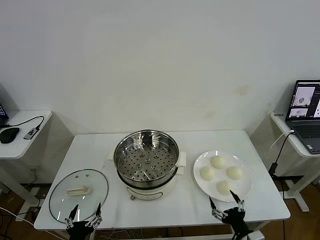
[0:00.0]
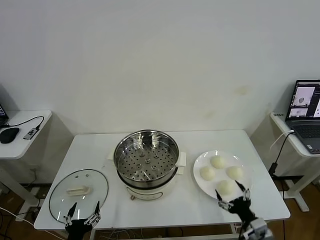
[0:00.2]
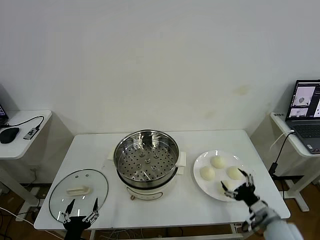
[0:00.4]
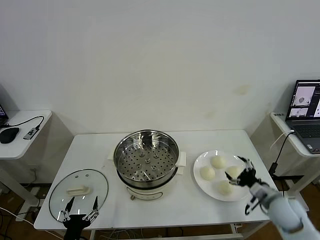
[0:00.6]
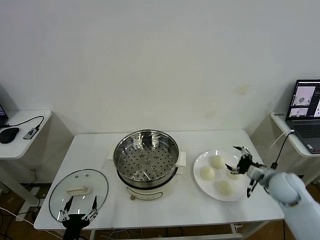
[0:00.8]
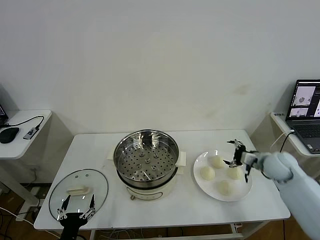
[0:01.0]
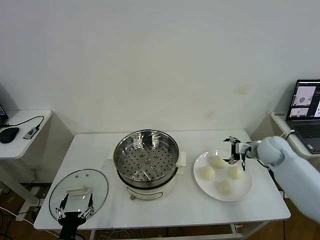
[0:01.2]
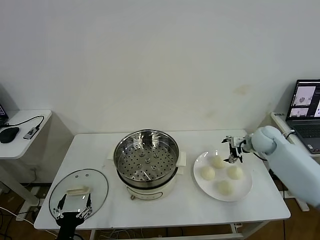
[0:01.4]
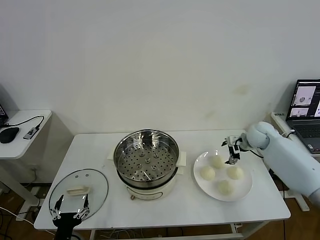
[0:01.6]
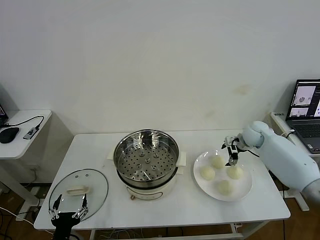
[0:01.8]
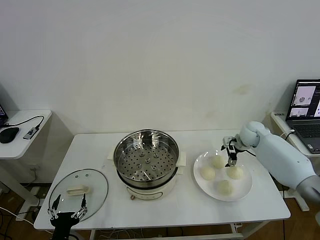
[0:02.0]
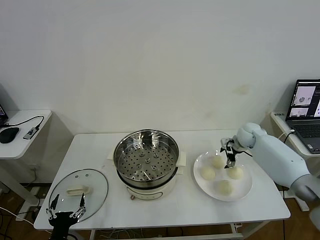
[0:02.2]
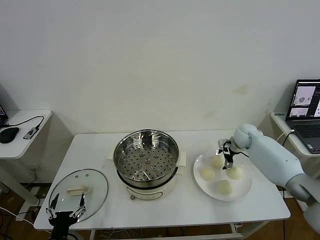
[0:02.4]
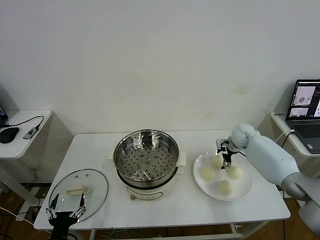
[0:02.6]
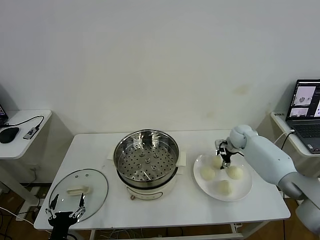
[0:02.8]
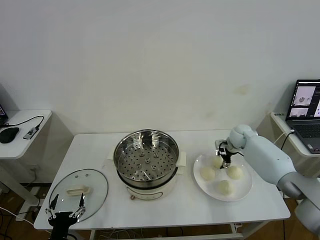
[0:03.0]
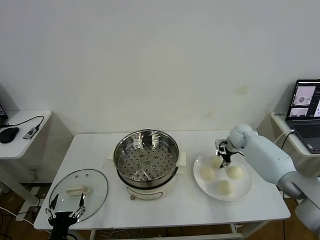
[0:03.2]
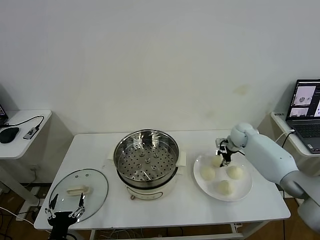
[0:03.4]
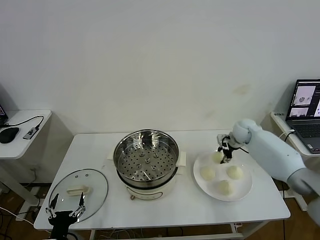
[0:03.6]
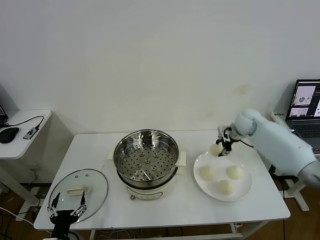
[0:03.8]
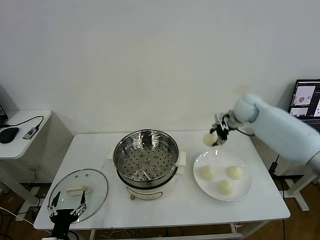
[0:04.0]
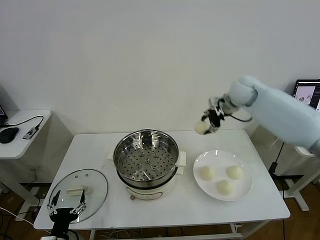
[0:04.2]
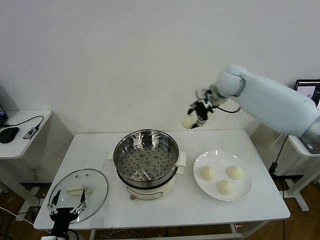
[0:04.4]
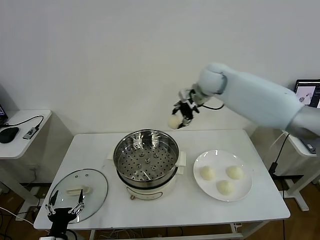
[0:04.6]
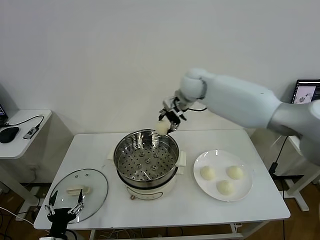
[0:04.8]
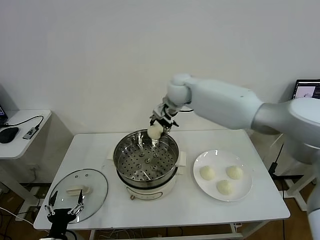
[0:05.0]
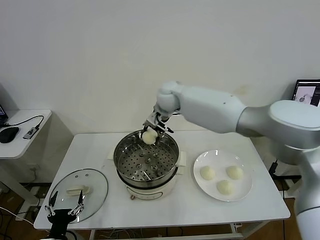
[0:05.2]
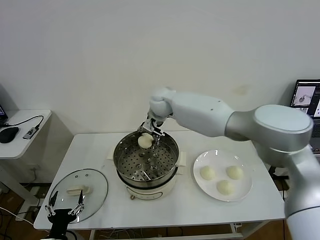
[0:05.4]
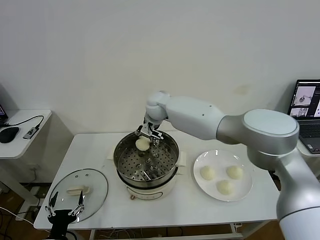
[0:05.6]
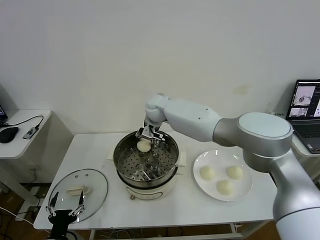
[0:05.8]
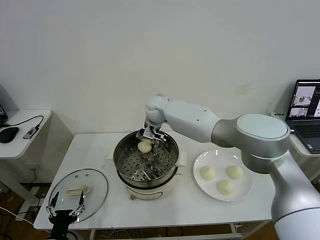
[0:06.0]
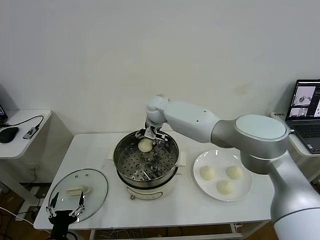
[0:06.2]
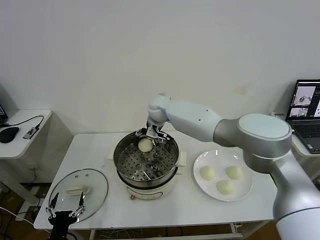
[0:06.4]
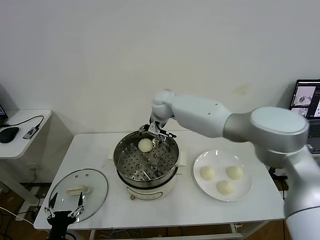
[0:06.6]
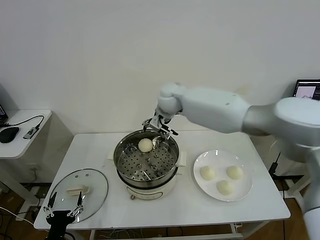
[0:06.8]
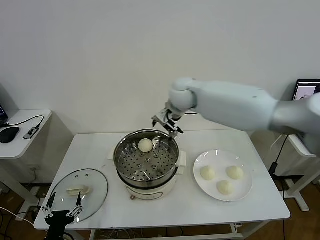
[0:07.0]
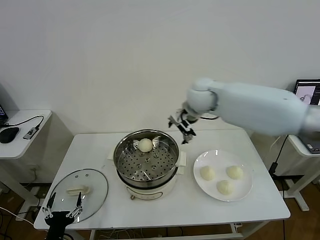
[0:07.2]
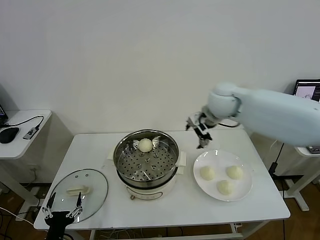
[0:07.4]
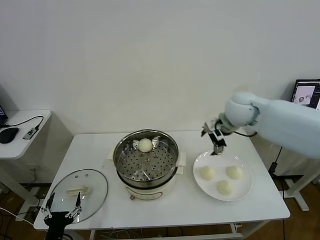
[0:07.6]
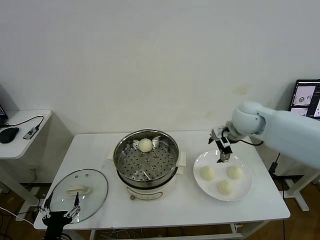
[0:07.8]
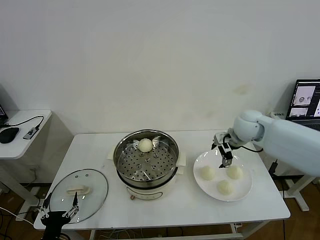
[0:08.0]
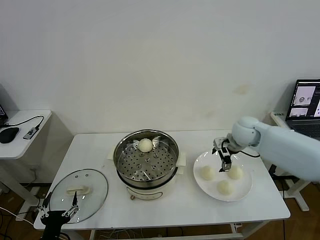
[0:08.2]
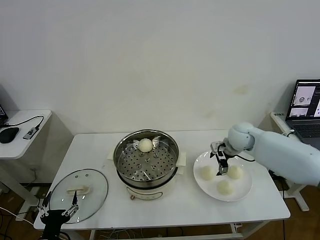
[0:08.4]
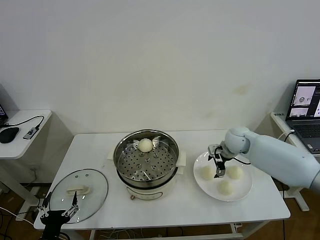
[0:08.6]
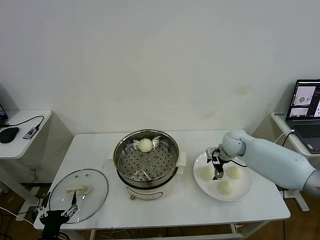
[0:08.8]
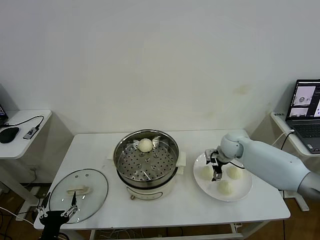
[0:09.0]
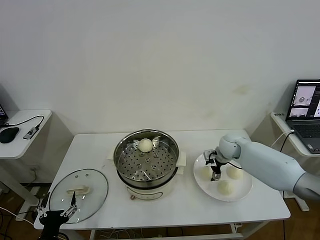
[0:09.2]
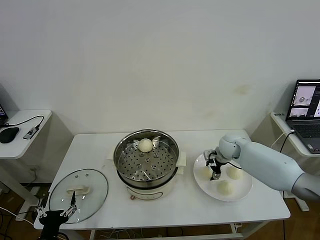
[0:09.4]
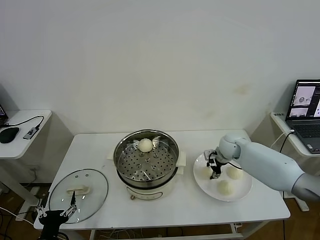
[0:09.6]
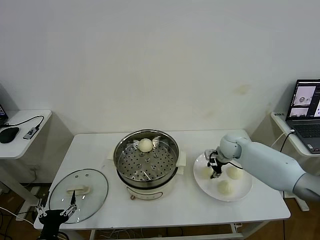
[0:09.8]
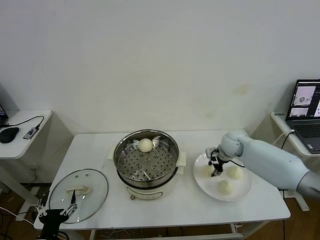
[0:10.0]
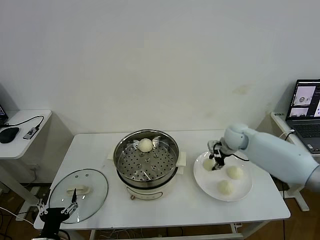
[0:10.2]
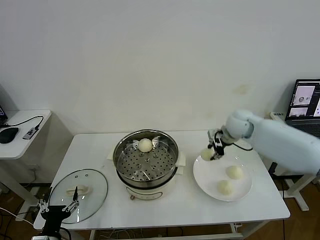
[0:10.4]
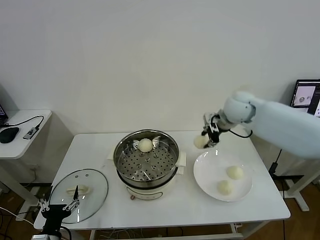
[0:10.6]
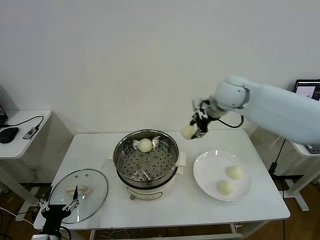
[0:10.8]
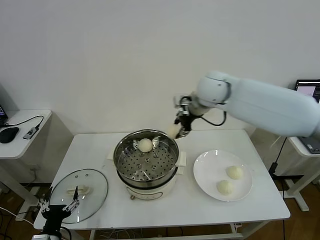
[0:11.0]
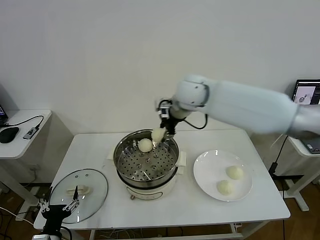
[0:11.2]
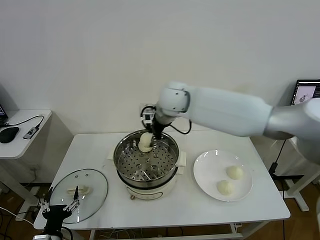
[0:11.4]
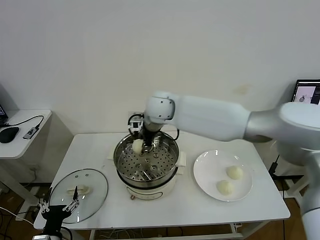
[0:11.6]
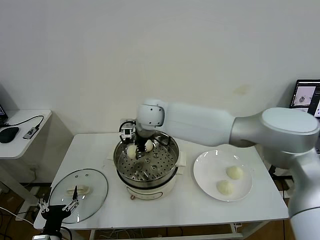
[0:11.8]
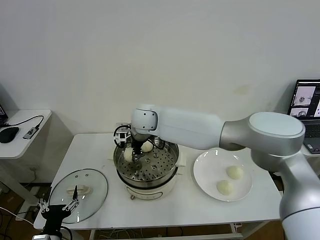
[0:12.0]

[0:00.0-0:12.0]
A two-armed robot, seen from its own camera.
Task of the whole recording: take steamed baozi put them in steamer then cover it.
Step, 0:00.0 to 0:03.4: Grasp the baozi in the plate with right gripper.
Step, 0:03.6 to 0:06.2: Place the baozi on the steamer with right gripper.
Step, 0:06.4 to 0:09.6: Grasp the baozi in the plate with right gripper.
0:01.6 to 0:03.0: The right gripper shifts by about 5 cm, and closes up.
0:03.0 to 0:04.4: The right gripper heads upward and to the left, covering roughly 30 cm.
0:04.4 to 0:06.0: The right gripper is displaced to the left and downward by roughly 25 cm.
0:06.0 to 0:07.6: The right gripper is displaced to the right by some 25 cm, and opens up.
0:07.6 to 0:09.0: The right gripper travels downward by roughly 20 cm.
0:09.0 to 0:10.4: The right gripper is displaced upward by about 15 cm, and closes its fingers.
0:10.4 to 0:12.0: The right gripper shifts some 30 cm to the left.

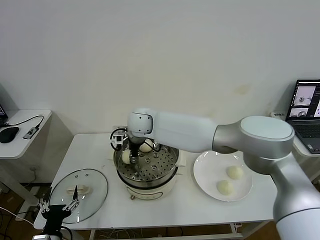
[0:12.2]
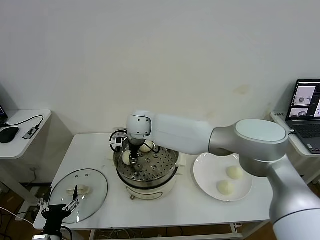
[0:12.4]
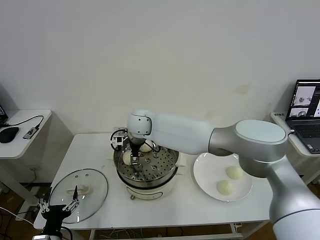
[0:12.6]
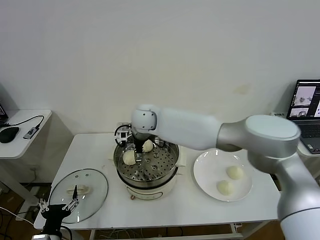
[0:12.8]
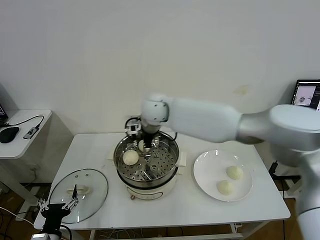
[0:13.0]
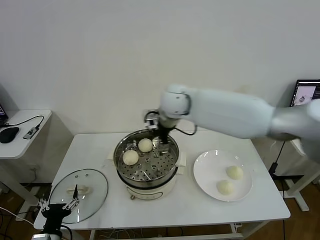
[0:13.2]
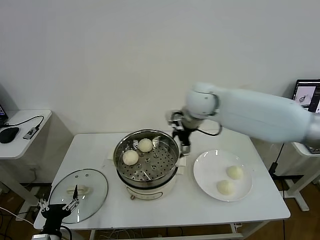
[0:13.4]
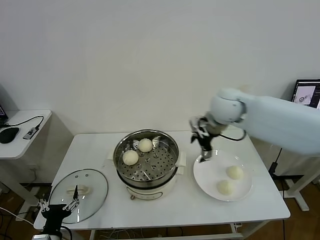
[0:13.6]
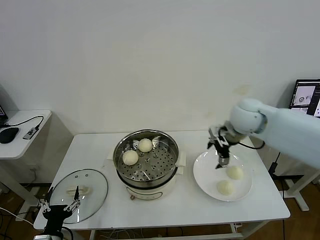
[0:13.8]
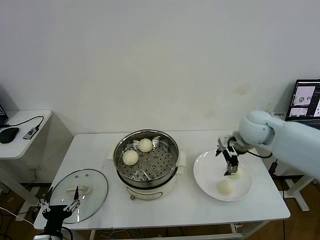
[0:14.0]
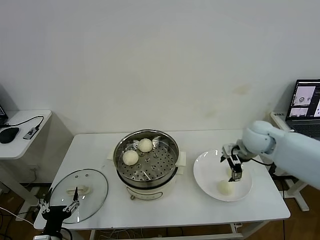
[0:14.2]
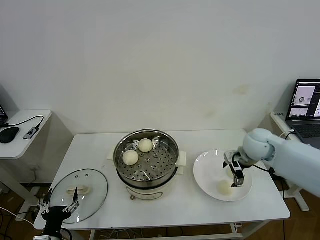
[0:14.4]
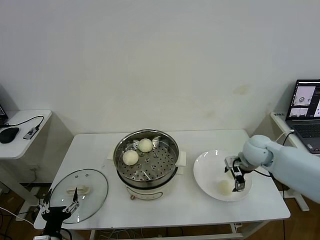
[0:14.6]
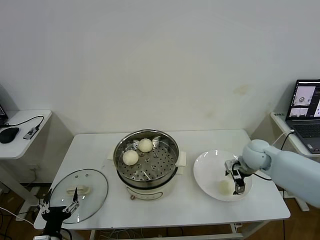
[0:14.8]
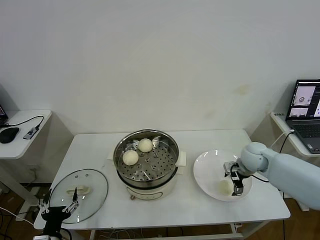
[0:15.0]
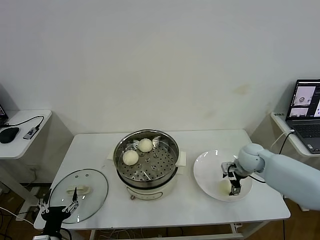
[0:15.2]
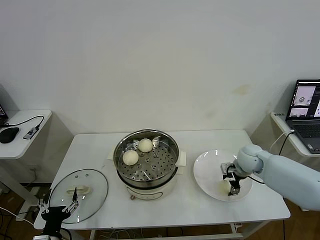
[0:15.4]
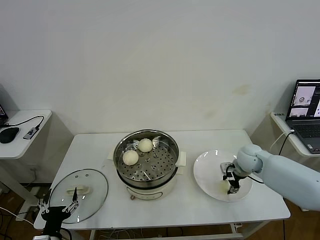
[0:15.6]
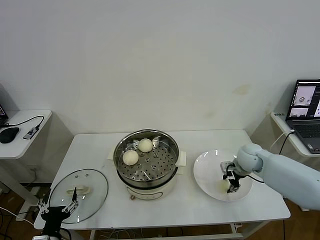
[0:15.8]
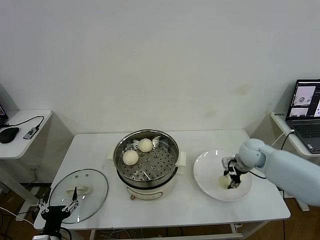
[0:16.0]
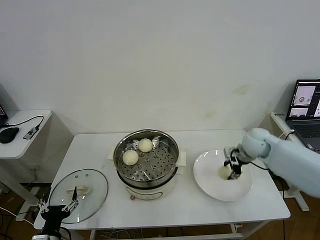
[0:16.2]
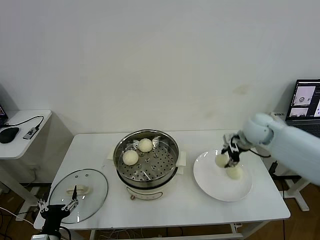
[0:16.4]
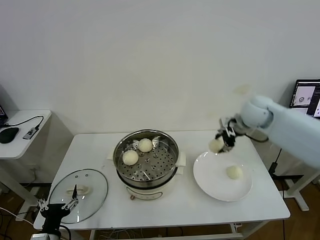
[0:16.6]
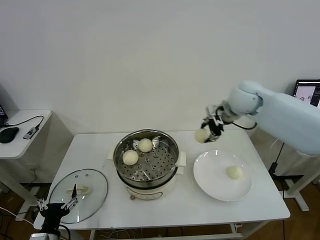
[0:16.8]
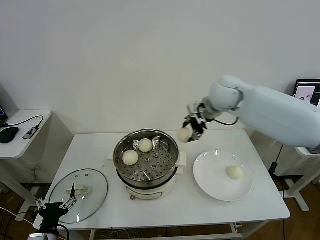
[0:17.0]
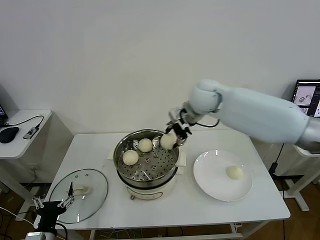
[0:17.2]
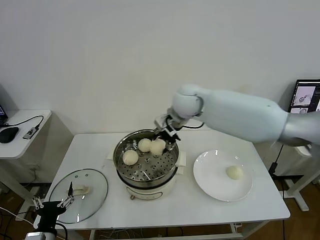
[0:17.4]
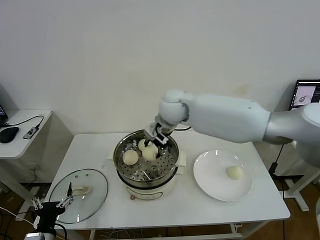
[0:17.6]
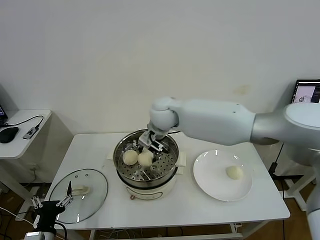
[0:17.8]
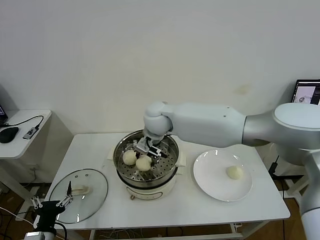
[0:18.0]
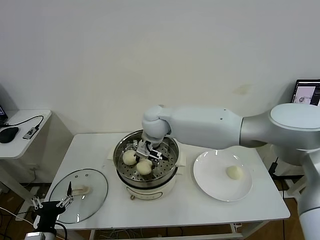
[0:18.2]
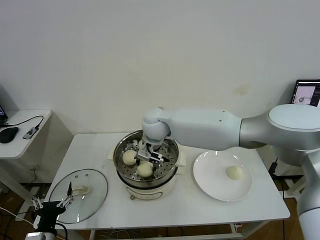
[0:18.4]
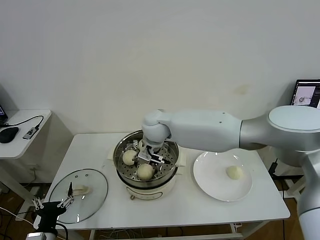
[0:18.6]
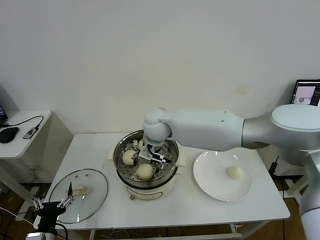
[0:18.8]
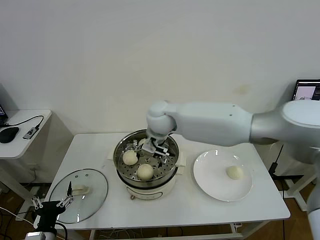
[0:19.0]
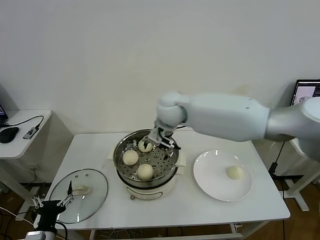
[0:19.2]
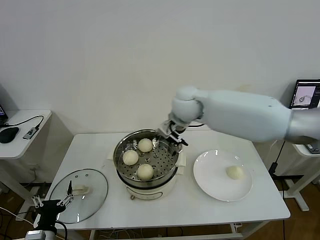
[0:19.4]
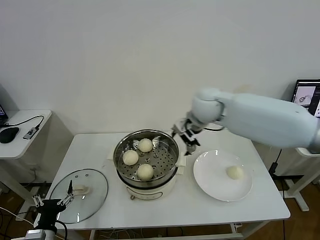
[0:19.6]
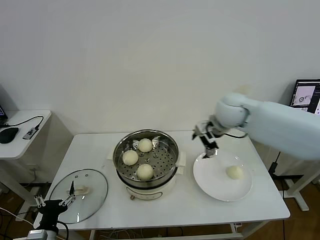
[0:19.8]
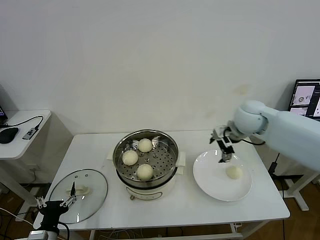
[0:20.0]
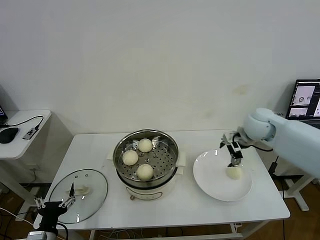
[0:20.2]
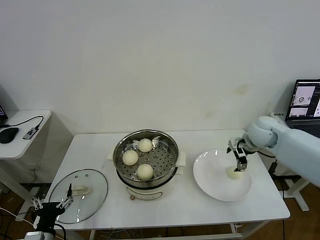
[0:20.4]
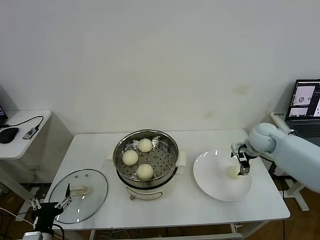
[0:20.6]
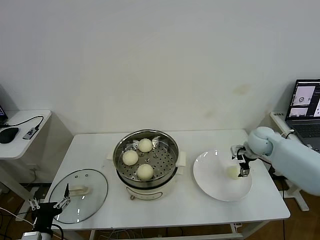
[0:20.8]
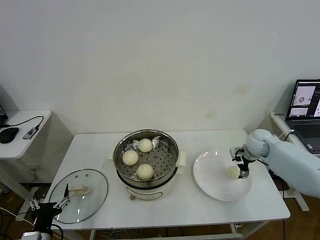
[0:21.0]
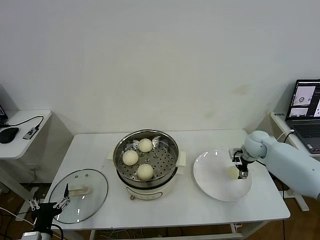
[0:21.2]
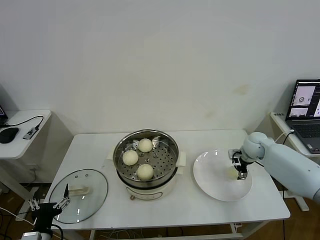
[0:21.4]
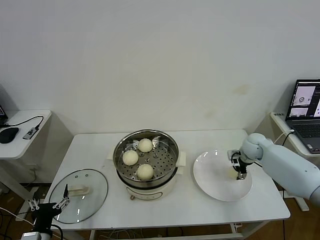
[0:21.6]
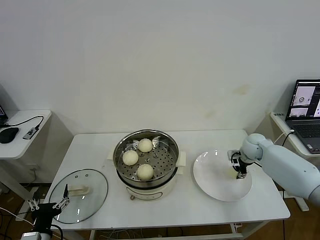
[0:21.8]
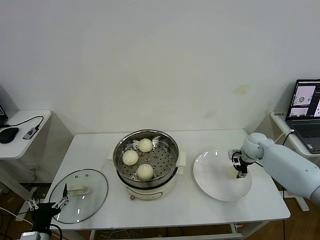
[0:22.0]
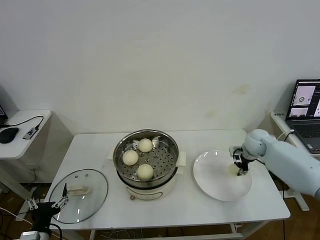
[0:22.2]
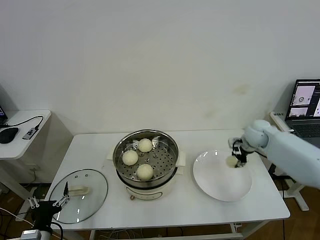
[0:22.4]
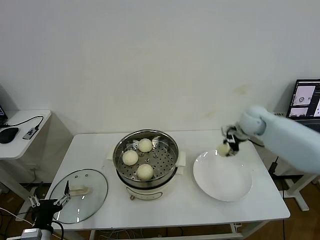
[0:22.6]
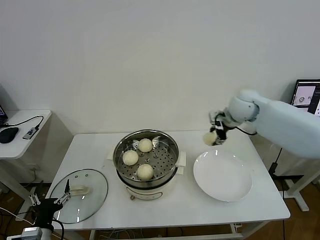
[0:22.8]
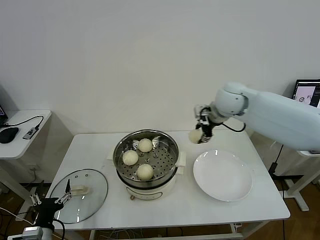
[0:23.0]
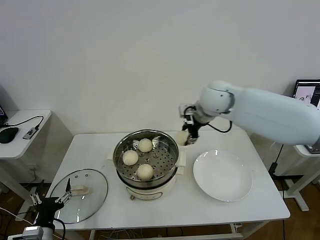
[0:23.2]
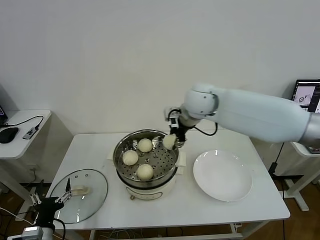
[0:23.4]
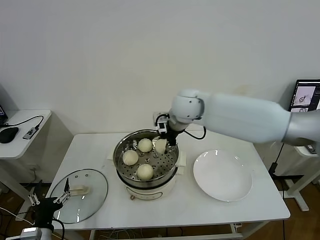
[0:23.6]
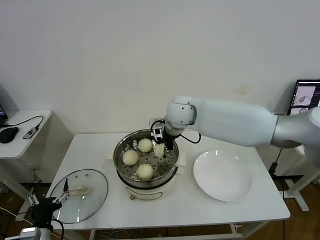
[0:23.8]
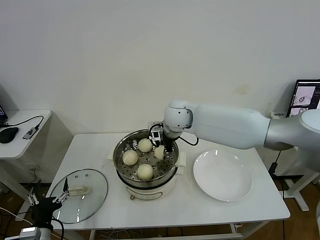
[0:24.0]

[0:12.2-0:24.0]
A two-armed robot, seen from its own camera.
Task of the whole recording: take steamed baozi put them in steamer then cover it.
Step, 0:12.8 to 0:15.8: Grasp the baozi in the plate with right gripper.
Step, 0:16.0 to 0:18.8: Place the baozi on the steamer with right gripper.
Step, 0:19.0 to 0:22.2: Grasp the baozi in the plate with right gripper.
0:12.2 to 0:13.6: The right gripper is displaced to the right by approximately 30 cm, and opens.
0:13.6 to 0:15.2: The right gripper shifts about 25 cm downward and to the right.
0:15.2 to 0:16.6: The right gripper goes roughly 20 cm upward, and closes.
0:16.6 to 0:18.2: The right gripper shifts roughly 30 cm to the left.
0:18.2 to 0:19.6: The right gripper shifts approximately 15 cm to the right, and opens its fingers.
0:19.6 to 0:21.0: The right gripper goes some 30 cm to the right and downward.
0:21.0 to 0:22.6: The right gripper travels upward and to the left by some 10 cm, and closes up.
0:22.6 to 0:24.0: The right gripper heads to the left, covering roughly 25 cm.
